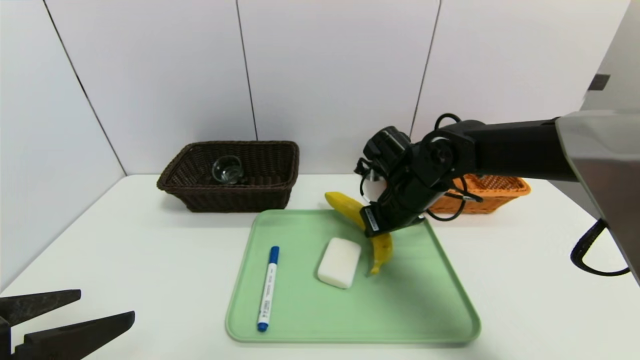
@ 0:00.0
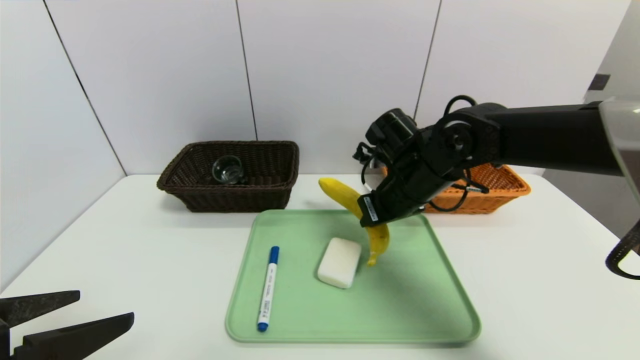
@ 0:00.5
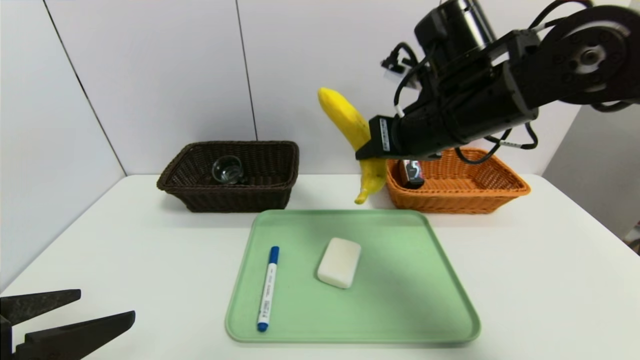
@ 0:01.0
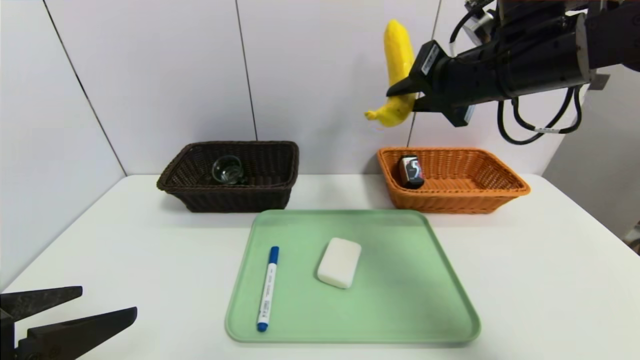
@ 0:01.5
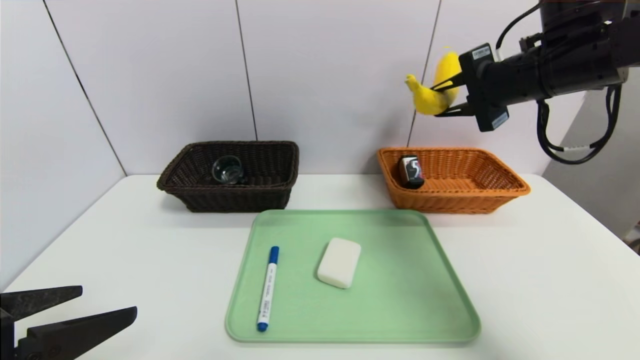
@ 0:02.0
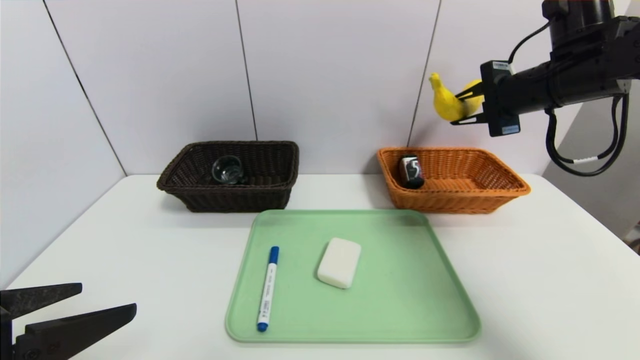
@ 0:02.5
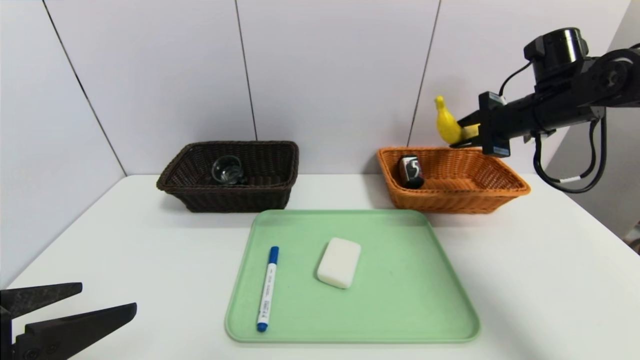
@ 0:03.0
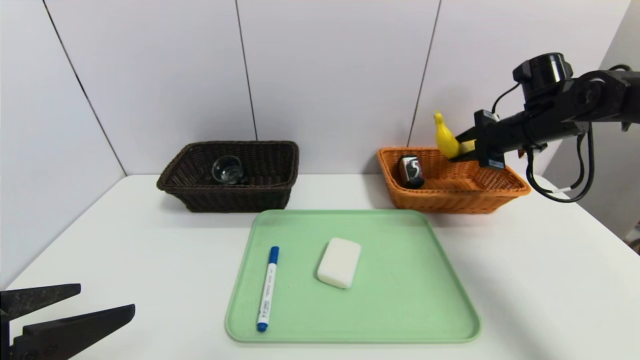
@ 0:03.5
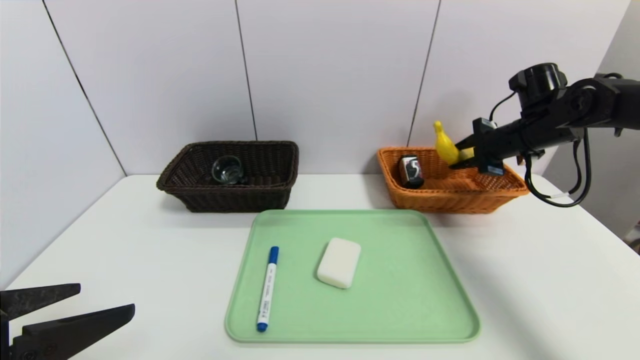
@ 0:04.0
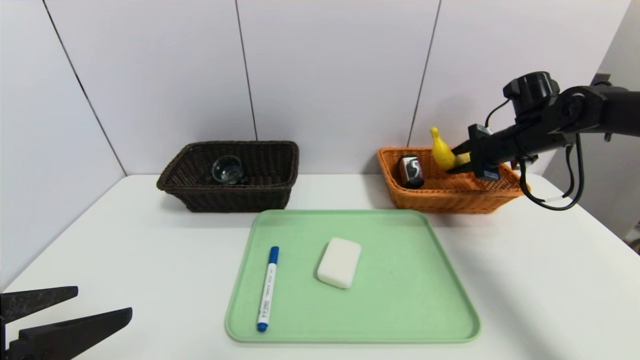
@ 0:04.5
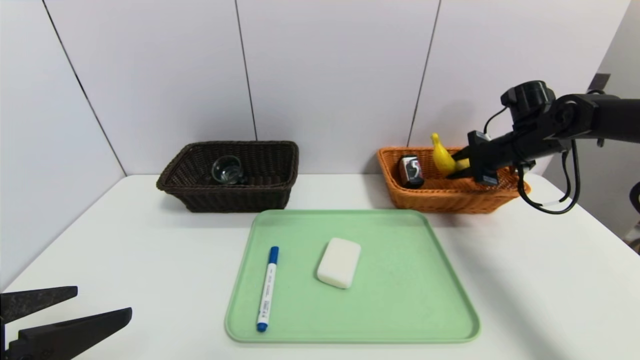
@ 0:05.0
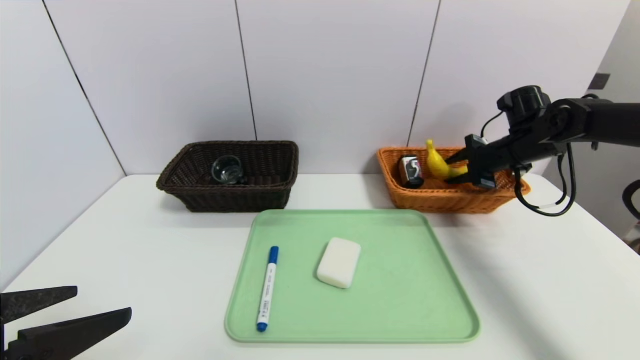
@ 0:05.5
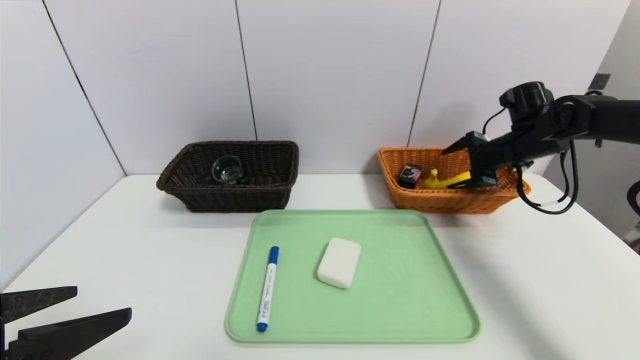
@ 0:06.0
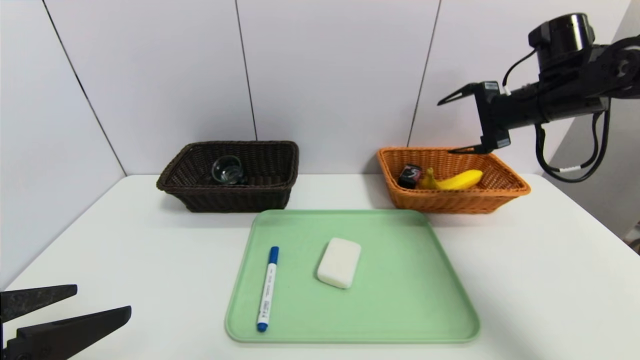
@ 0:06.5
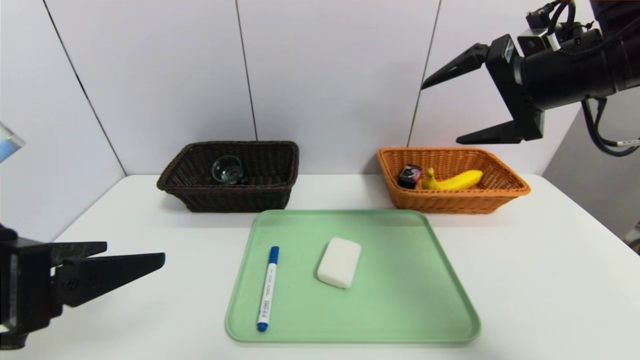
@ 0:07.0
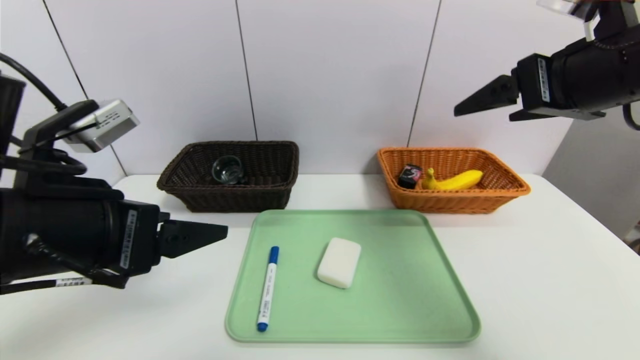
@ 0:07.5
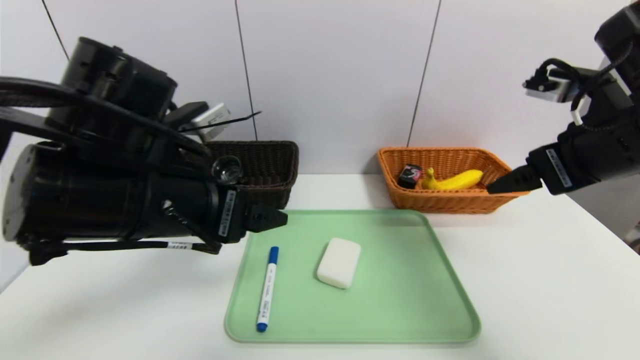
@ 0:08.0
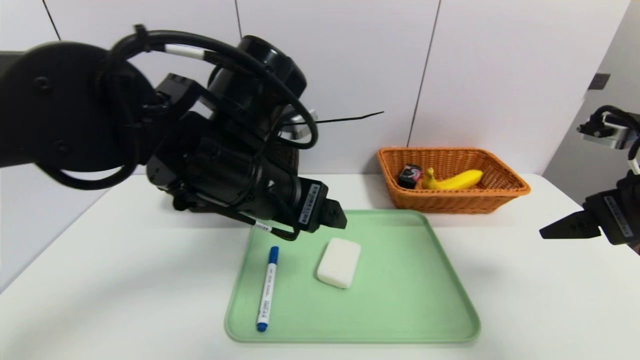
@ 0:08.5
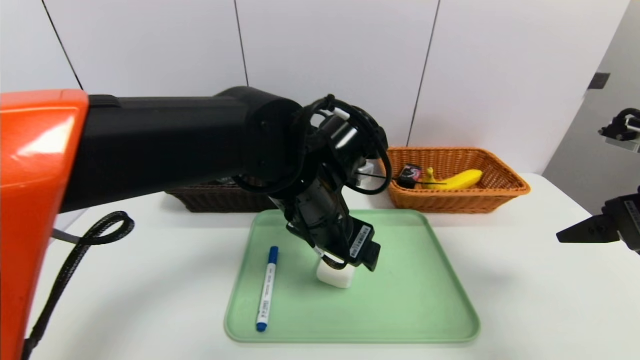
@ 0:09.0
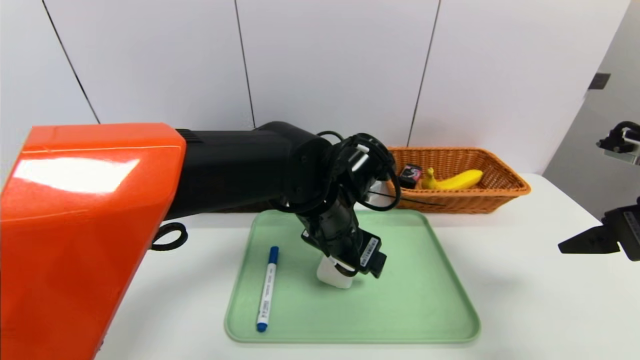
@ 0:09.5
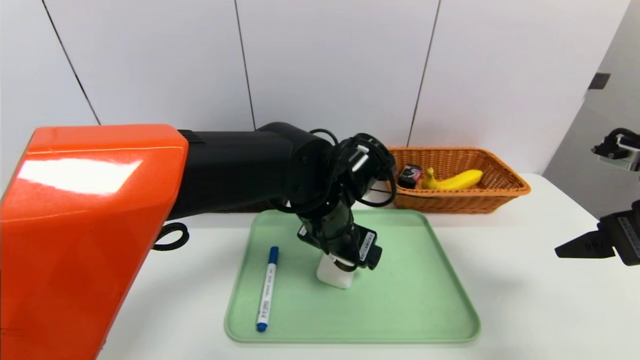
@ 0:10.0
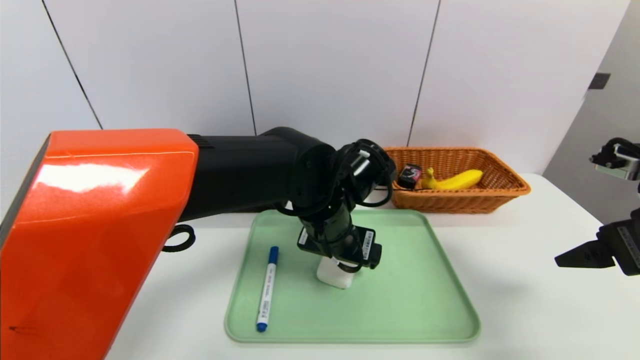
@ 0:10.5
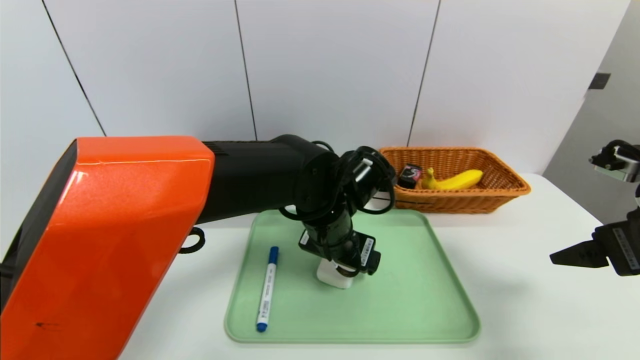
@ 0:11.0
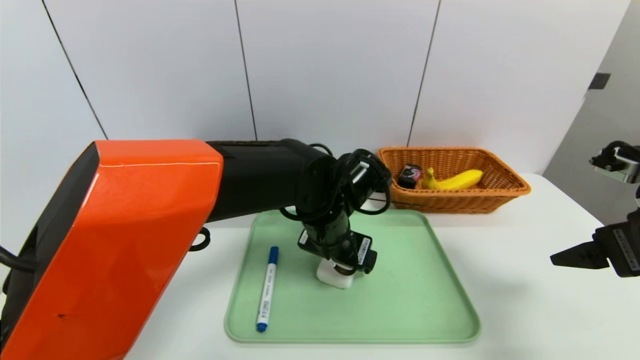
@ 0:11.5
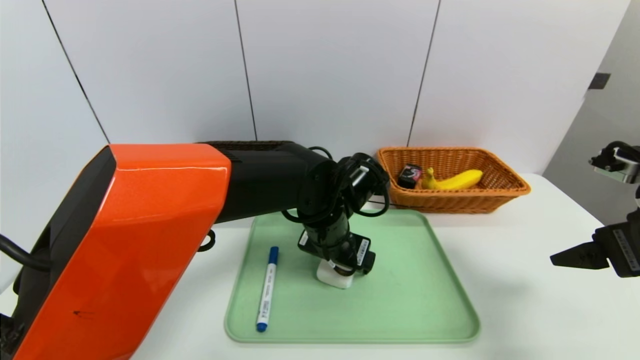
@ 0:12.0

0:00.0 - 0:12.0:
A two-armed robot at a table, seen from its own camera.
Task of the whole recording: place the food in the right basket with the right gripper, and place the non food items in the left basket with the left gripper.
Step, 0:00.0 - 0:06.0: Grasp the banana and put it in the right basket.
0:00.0 - 0:02.0: The right gripper moves upward and to the right, roughly 20 cm.
0:02.0 - 0:04.0: The right gripper travels downward, forward and to the right by some 15 cm.
0:04.0 - 0:06.0: The right gripper opens its fingers.
0:06.0 - 0:08.0: The left gripper goes some 20 cm forward and to the right, while the right gripper shifts approximately 25 cm backward and upward.
0:08.0 - 0:10.0: The left gripper heads to the right, downward and forward, covering about 20 cm, while the right gripper heads to the right, covering some 5 cm.
0:10.0 - 0:12.0: There are only small adjustments of the grippers.

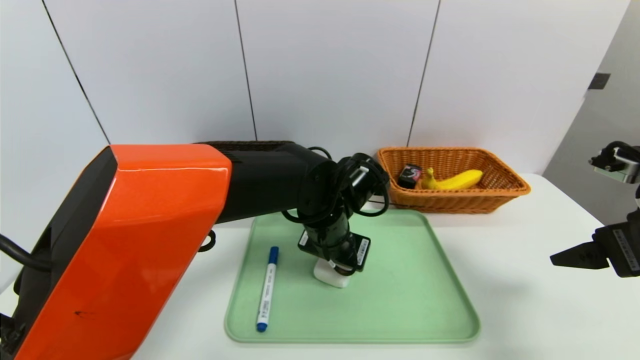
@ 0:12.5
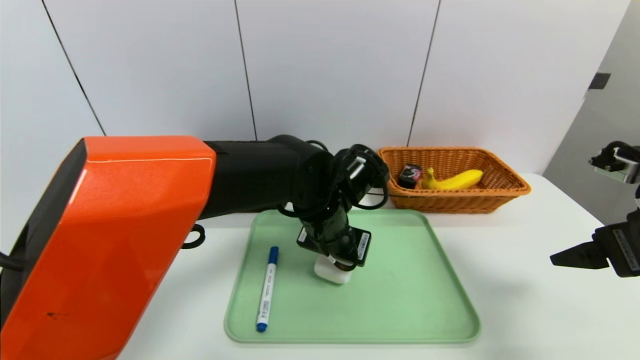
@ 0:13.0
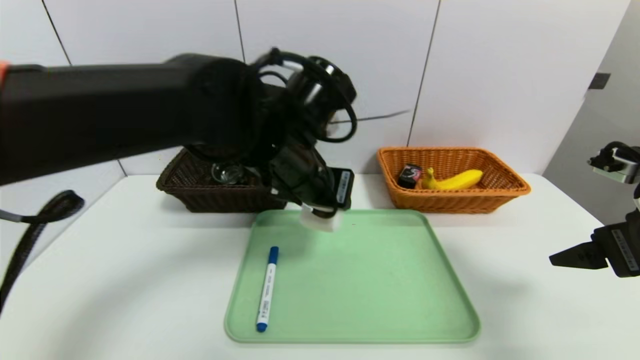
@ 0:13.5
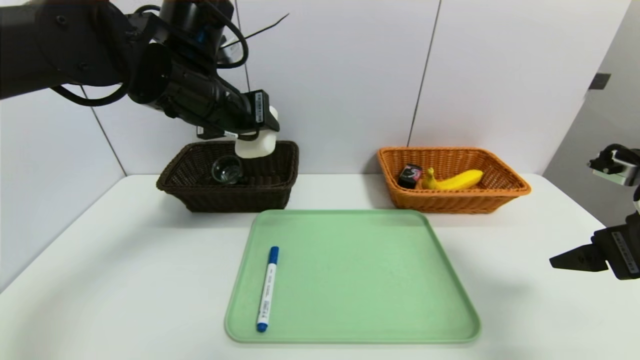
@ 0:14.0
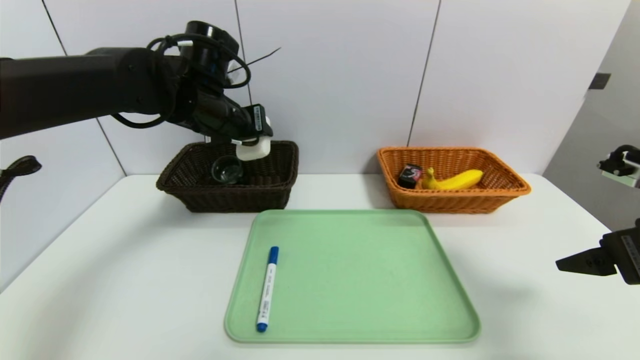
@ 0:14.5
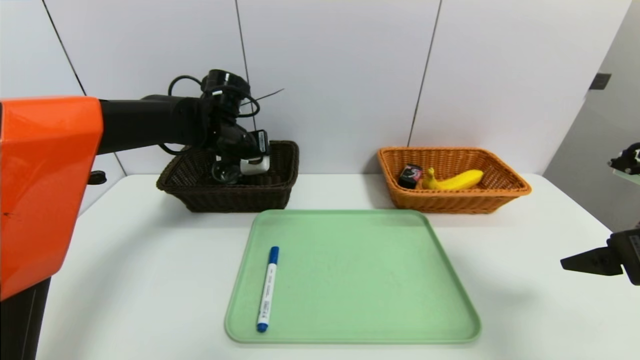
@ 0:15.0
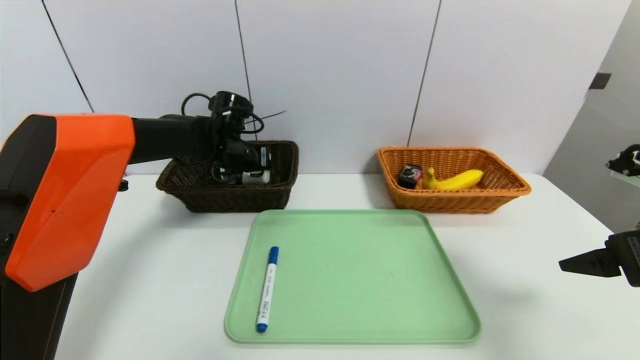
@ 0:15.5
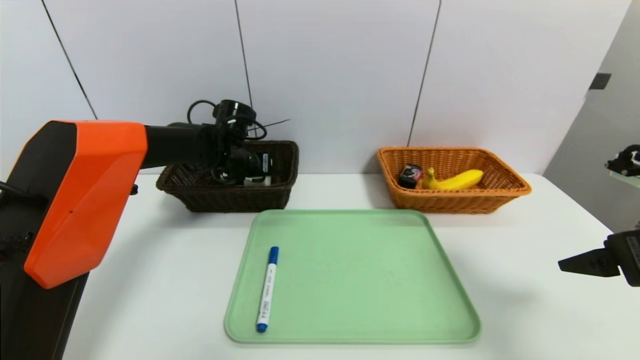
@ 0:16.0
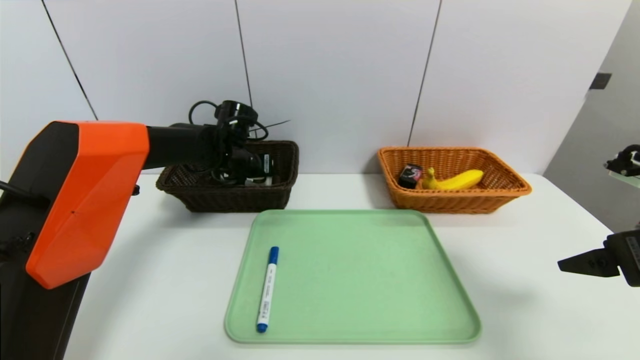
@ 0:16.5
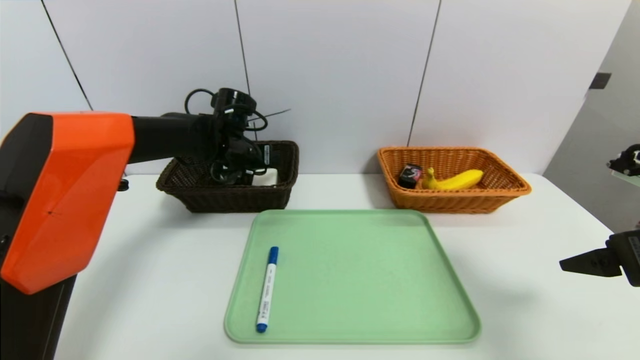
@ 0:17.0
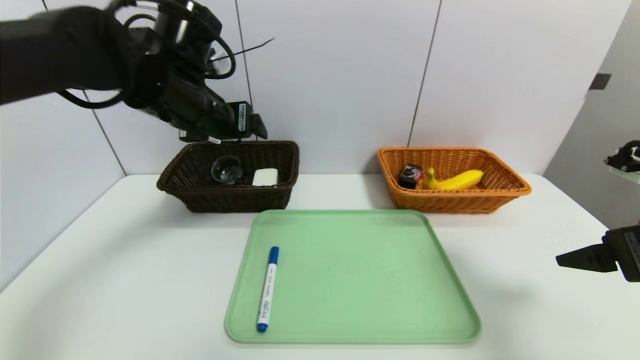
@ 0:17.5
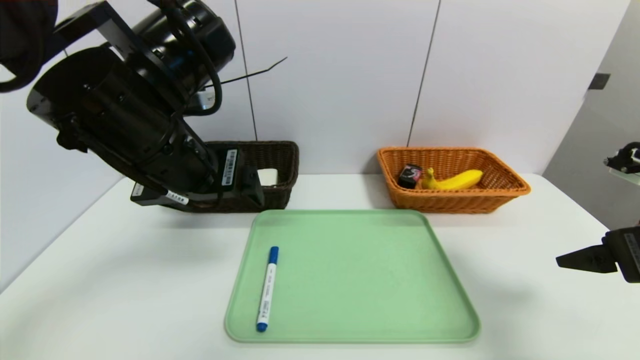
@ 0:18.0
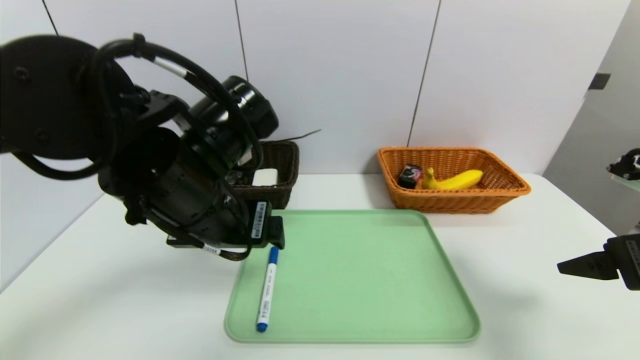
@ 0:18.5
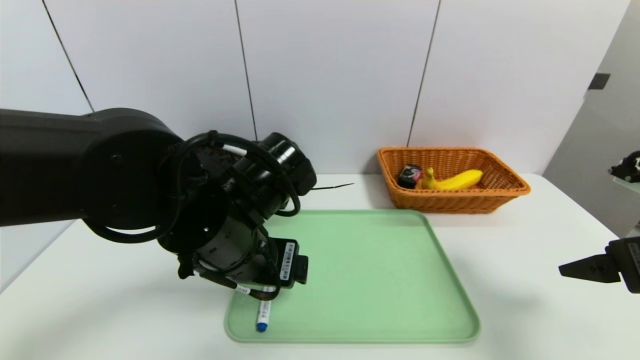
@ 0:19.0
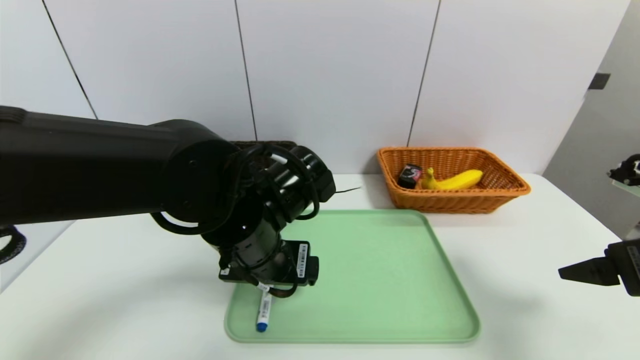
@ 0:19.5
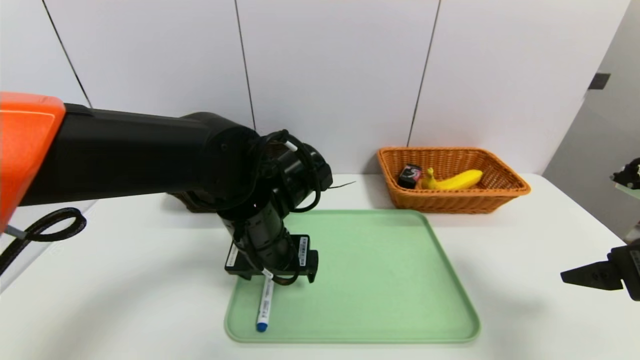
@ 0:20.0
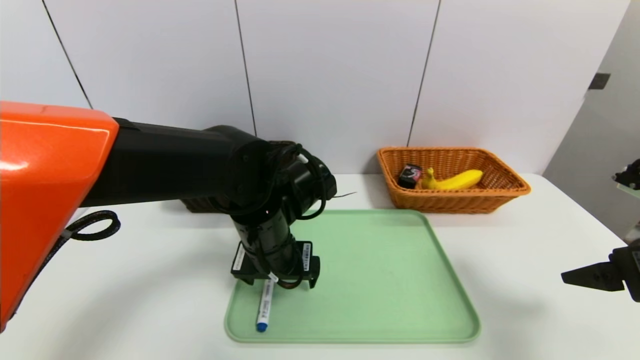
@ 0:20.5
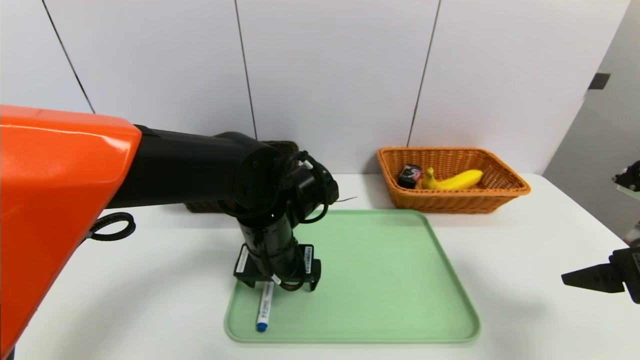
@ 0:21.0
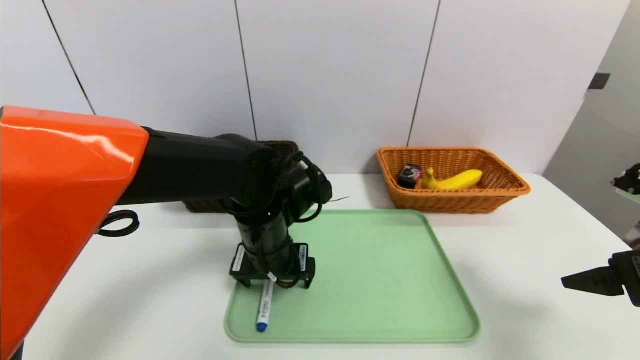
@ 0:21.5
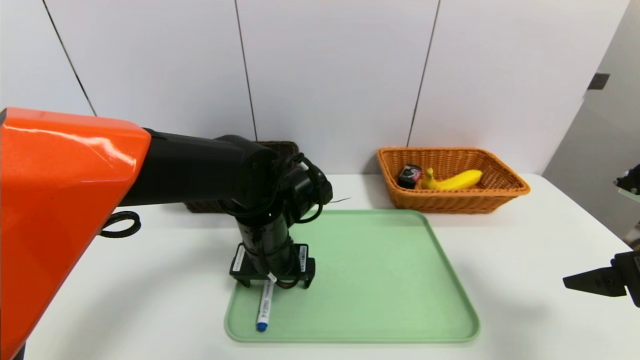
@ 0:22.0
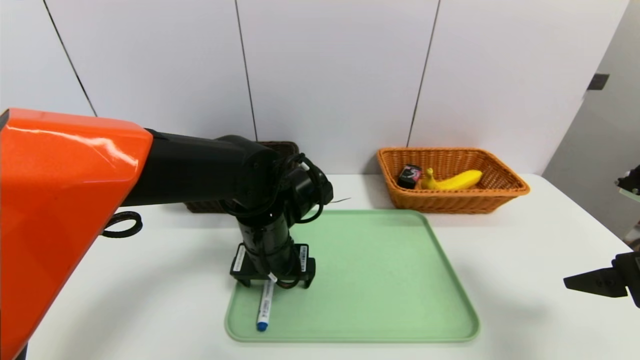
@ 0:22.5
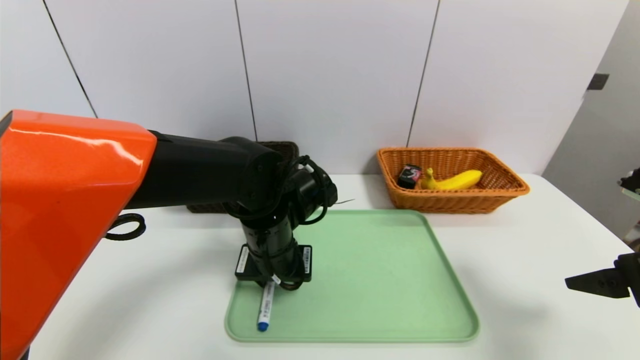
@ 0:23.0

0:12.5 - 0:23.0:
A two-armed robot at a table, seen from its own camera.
Task of the whole recording: place the food in the right basket with the right gripper, and place the non food items in the left basket with the left gripper.
Step, 0:12.5 - 0:17.0: Grasp the soap and put it in the left basket.
0:12.5 - 0:14.5: The left gripper moves to the left, upward and forward, approximately 25 cm.
0:14.5 - 0:16.5: The left gripper is displaced downward and forward by some 15 cm.
0:16.5 - 0:19.0: The left gripper is displaced backward by roughly 25 cm, and opens its fingers.
0:19.0 - 0:21.0: The left gripper goes approximately 10 cm forward and downward.
0:21.0 - 0:23.0: The left gripper closes its fingers.
